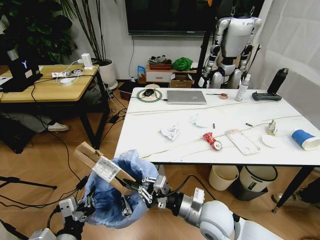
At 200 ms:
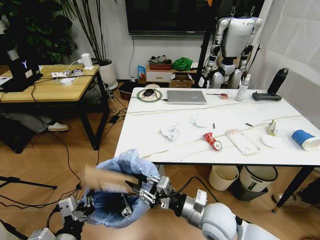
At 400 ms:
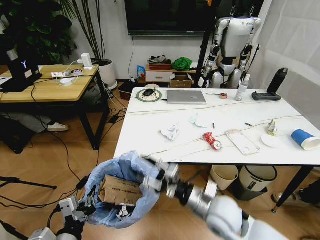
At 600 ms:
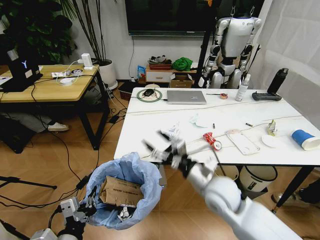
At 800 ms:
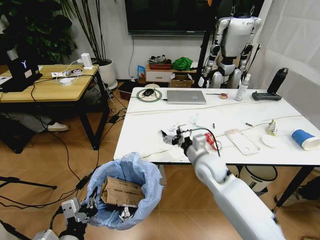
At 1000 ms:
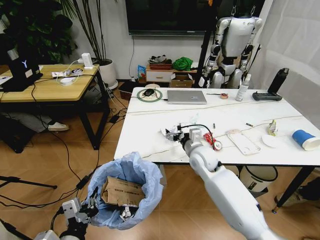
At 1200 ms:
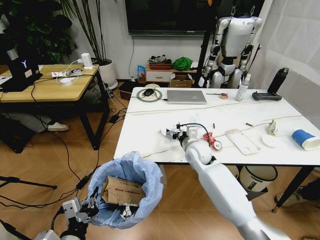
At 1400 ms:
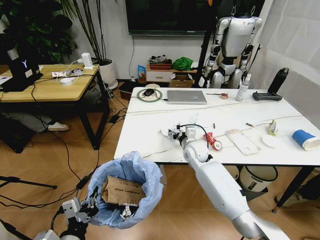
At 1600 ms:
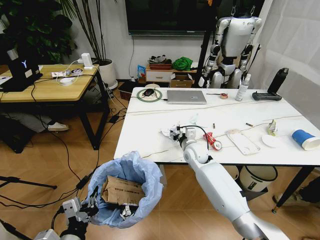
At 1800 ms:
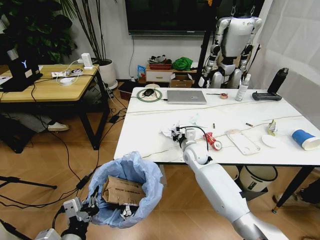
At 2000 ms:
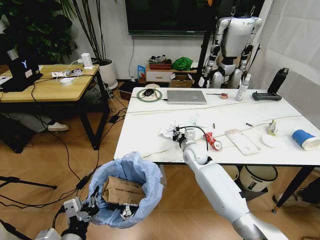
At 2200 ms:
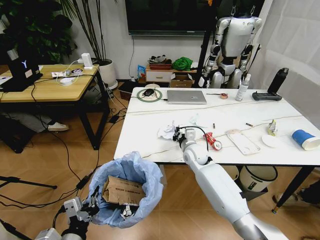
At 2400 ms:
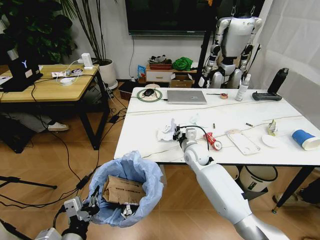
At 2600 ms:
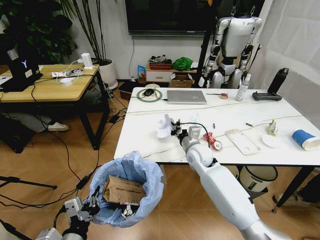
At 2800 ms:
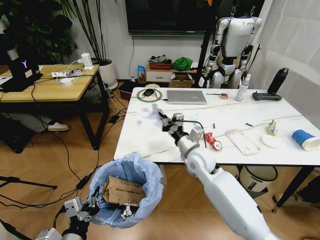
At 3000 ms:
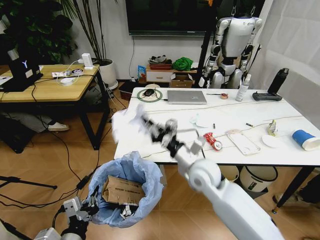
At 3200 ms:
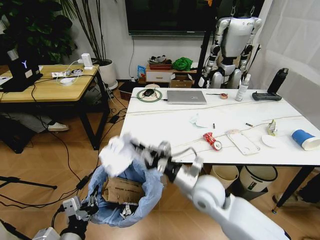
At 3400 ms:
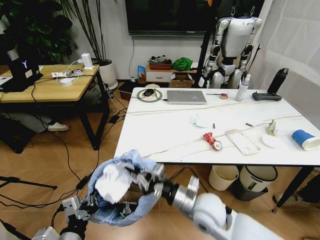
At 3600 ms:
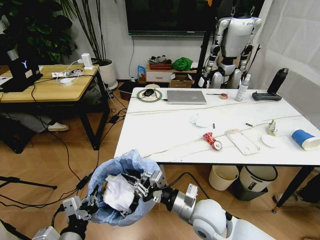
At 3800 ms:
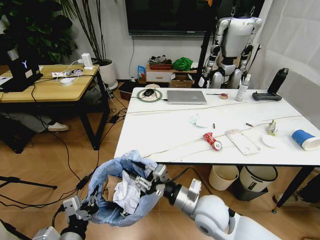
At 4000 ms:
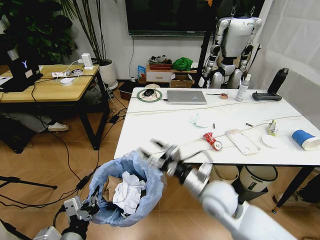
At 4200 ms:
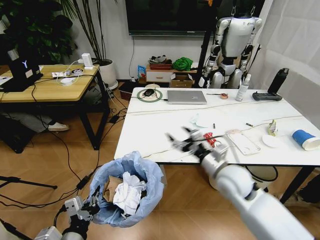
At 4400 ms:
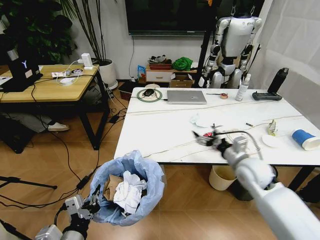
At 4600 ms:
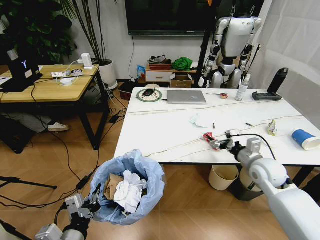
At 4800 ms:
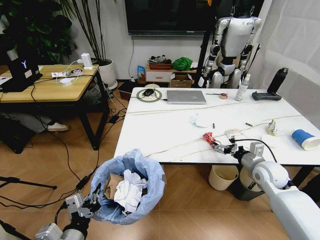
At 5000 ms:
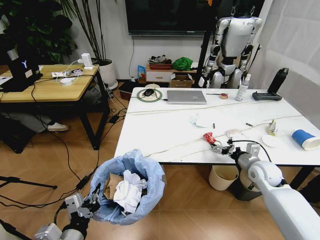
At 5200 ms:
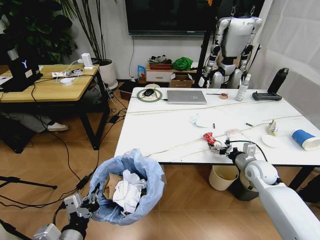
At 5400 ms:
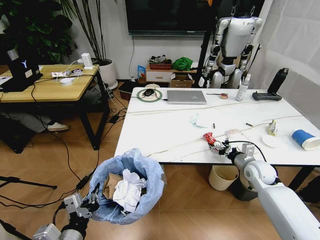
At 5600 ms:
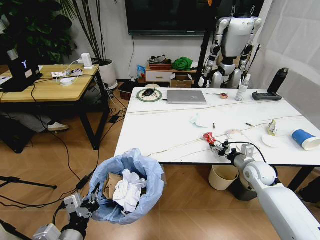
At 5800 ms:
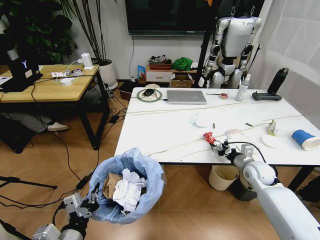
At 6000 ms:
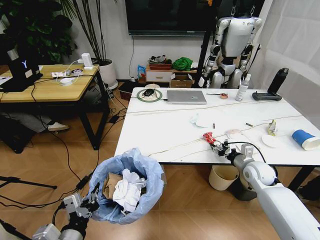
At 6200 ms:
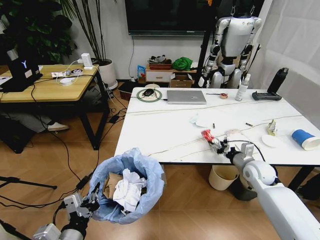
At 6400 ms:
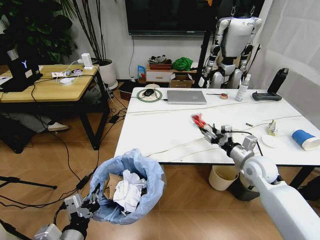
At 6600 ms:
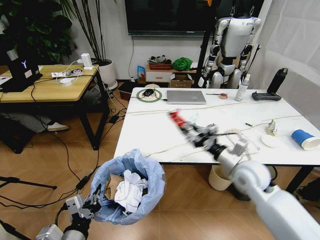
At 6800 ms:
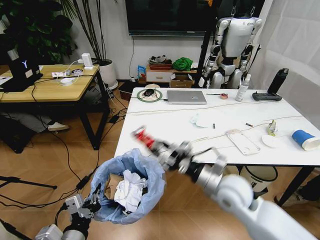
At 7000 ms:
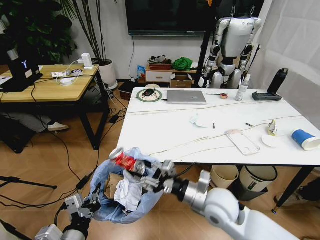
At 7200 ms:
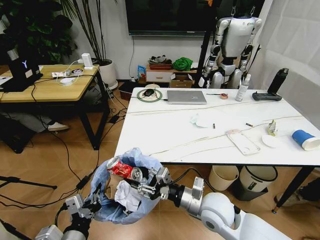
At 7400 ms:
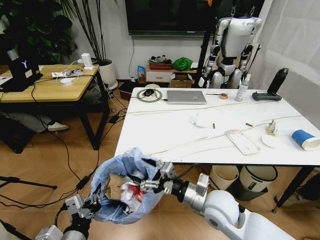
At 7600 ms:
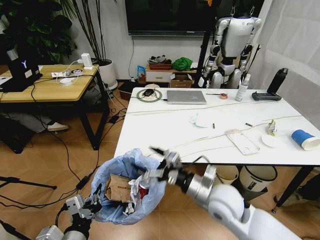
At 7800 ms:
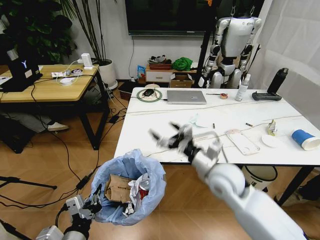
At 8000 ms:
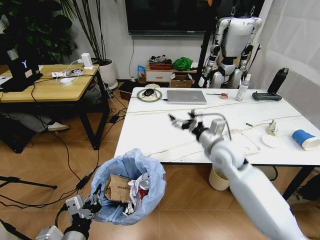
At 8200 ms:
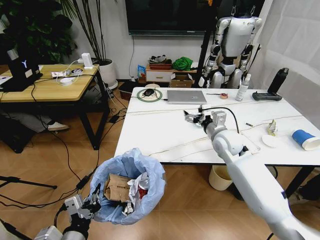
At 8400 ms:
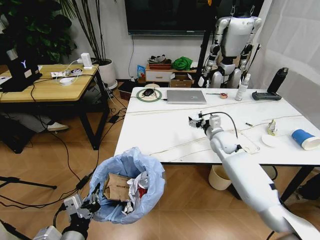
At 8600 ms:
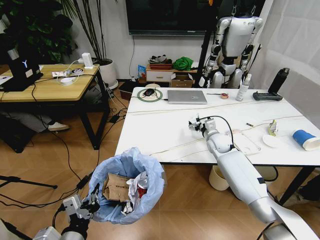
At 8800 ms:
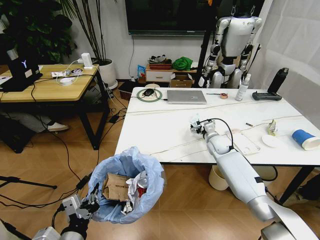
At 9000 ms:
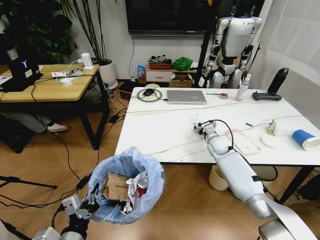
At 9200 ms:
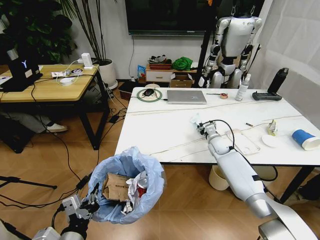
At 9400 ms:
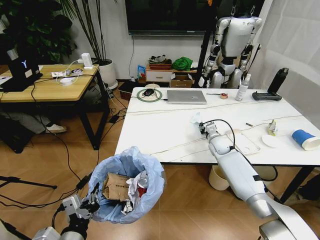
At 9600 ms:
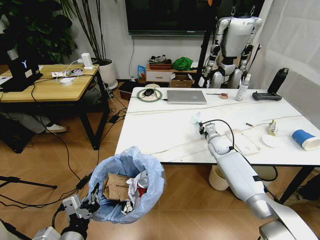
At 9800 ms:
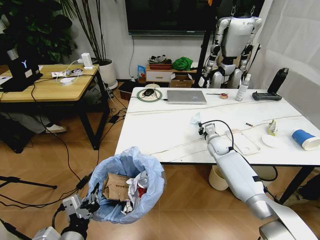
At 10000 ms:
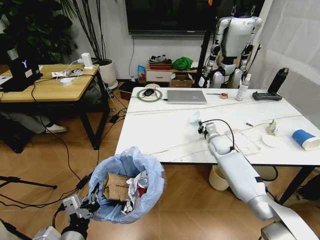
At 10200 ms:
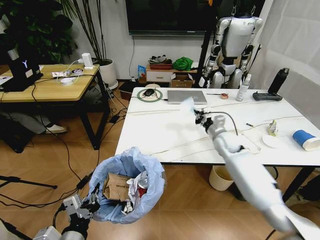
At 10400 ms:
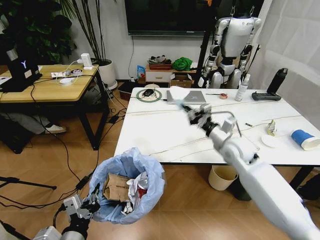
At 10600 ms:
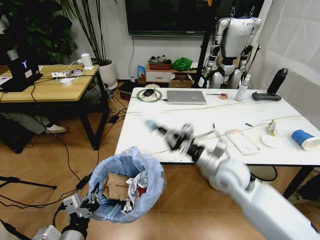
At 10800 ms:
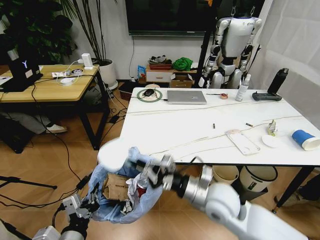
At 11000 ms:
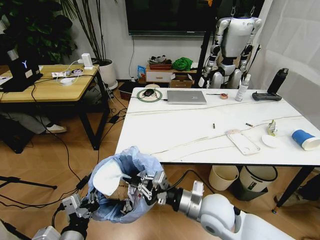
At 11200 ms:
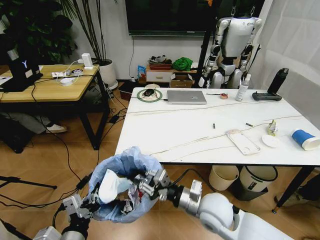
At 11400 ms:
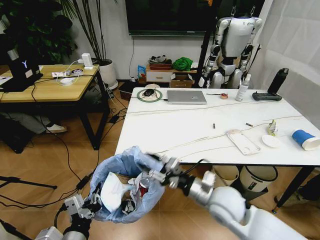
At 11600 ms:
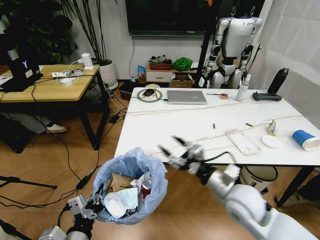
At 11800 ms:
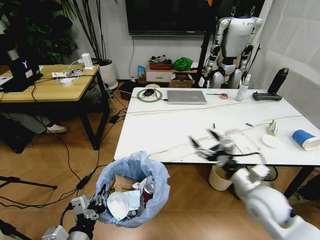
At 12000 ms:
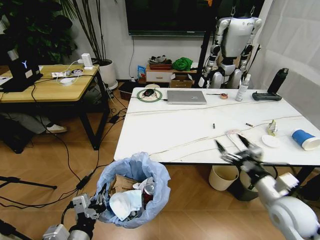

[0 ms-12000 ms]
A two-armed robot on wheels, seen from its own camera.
Task of the whole recording: Pick up the trash bin and place the trash from the table into it.
0 ms to 1600 ms: The right gripper is displaced forward by about 25 cm, and opens.
1600 ms to 3000 ms: The right gripper goes approximately 15 cm backward and upward, and closes up.
3000 ms to 4400 ms: The right gripper heads to the right, covering roughly 15 cm, and opens its fingers.
4400 ms to 6000 ms: The right gripper heads downward and to the right, covering approximately 10 cm, and closes up.
6000 ms to 7600 ms: The right gripper moves to the left, backward and upward, some 25 cm, and opens.
7600 ms to 9000 ms: The right gripper heads forward and downward, covering about 30 cm.
9000 ms to 10400 ms: The right gripper goes some 20 cm backward and upward, and closes up.
10400 ms to 12000 ms: The right gripper heads backward and to the right, covering some 20 cm, and opens up.

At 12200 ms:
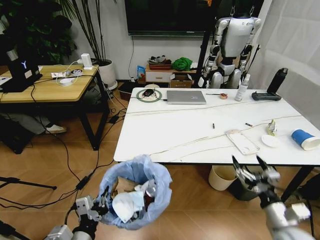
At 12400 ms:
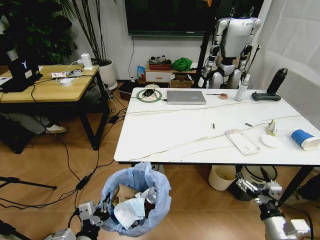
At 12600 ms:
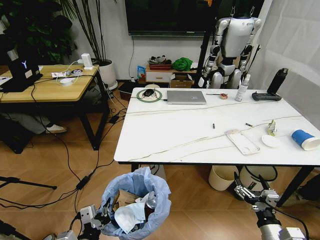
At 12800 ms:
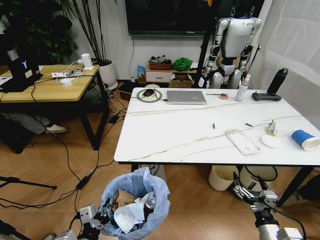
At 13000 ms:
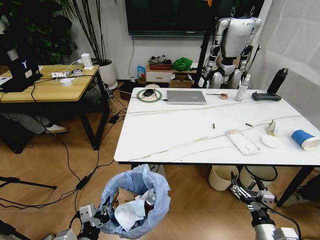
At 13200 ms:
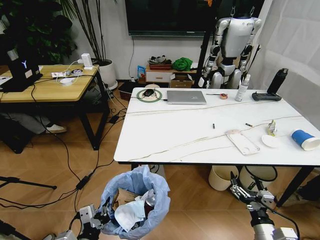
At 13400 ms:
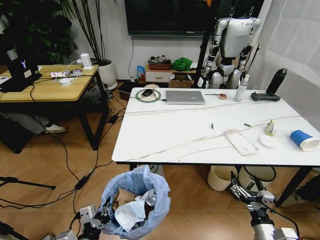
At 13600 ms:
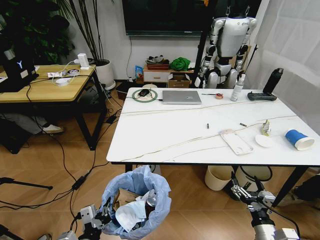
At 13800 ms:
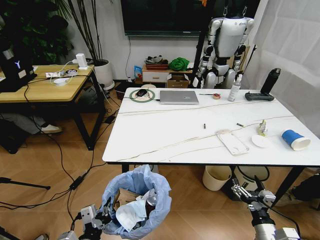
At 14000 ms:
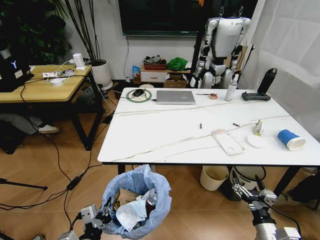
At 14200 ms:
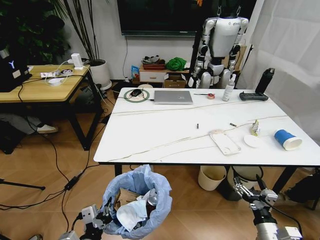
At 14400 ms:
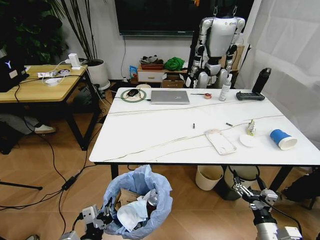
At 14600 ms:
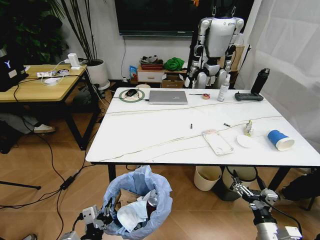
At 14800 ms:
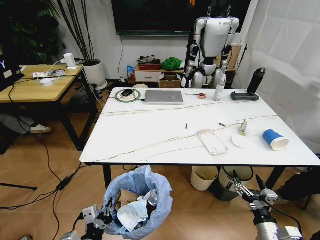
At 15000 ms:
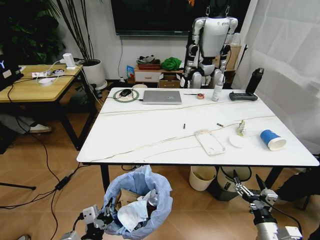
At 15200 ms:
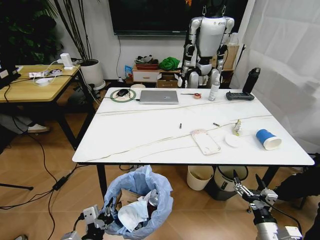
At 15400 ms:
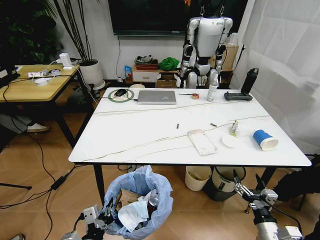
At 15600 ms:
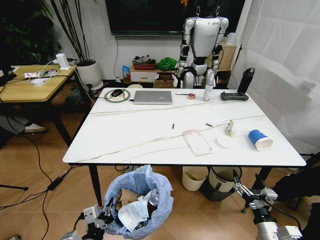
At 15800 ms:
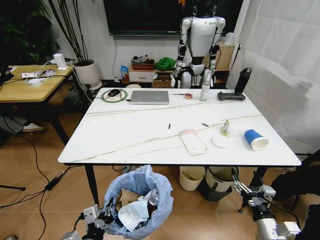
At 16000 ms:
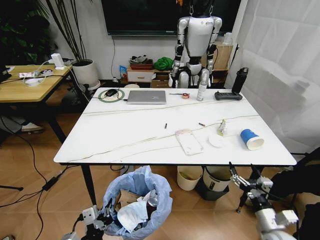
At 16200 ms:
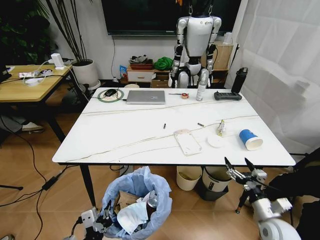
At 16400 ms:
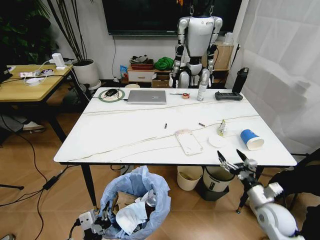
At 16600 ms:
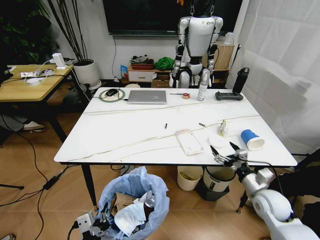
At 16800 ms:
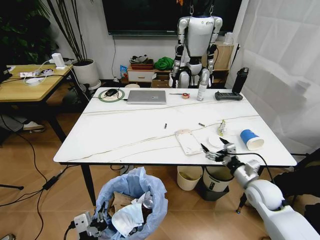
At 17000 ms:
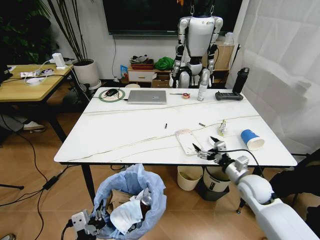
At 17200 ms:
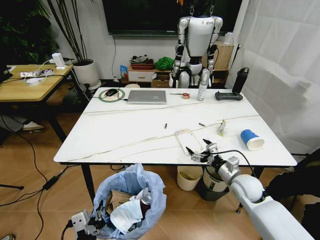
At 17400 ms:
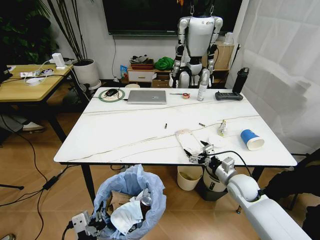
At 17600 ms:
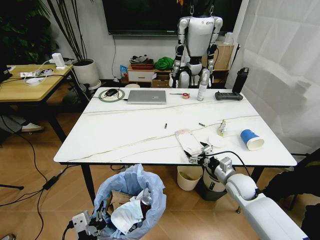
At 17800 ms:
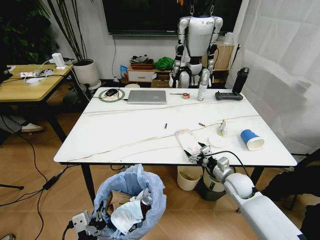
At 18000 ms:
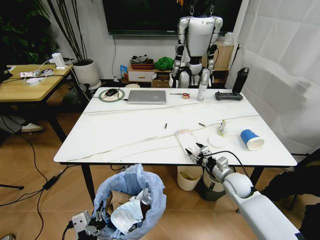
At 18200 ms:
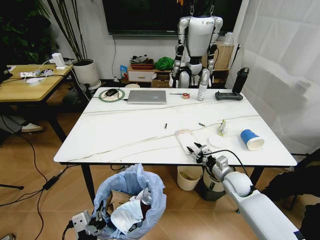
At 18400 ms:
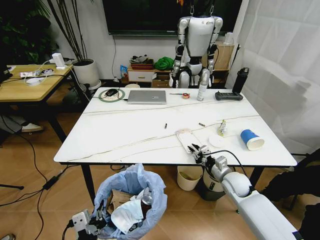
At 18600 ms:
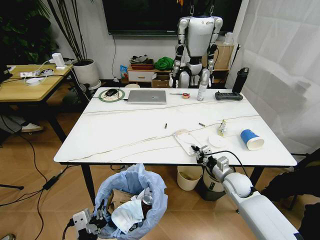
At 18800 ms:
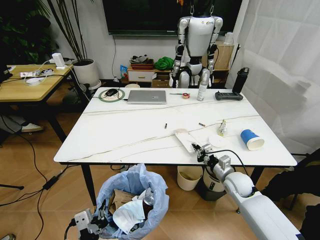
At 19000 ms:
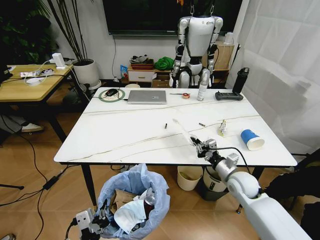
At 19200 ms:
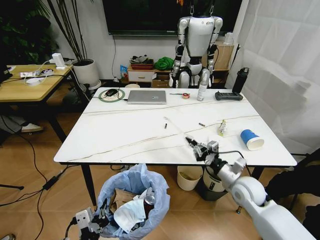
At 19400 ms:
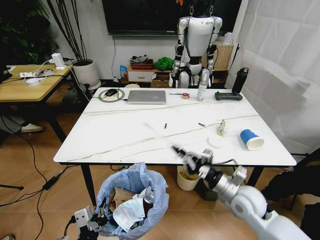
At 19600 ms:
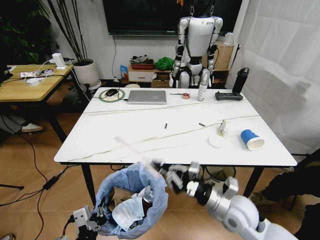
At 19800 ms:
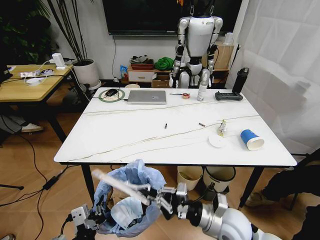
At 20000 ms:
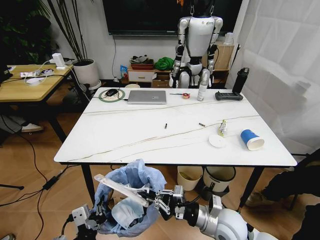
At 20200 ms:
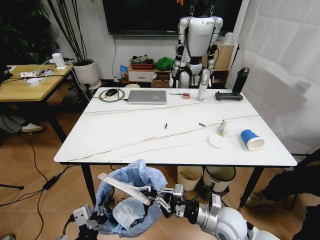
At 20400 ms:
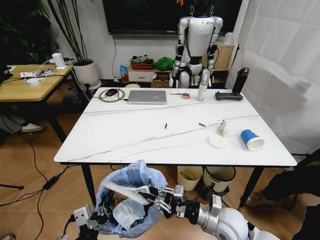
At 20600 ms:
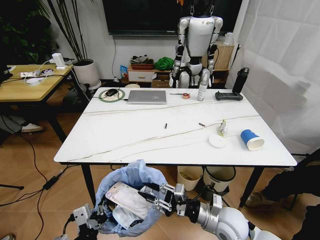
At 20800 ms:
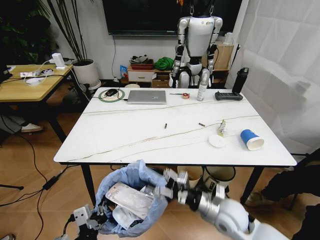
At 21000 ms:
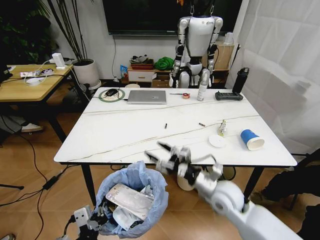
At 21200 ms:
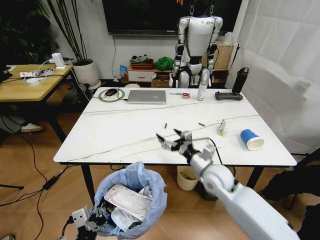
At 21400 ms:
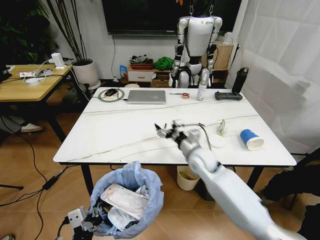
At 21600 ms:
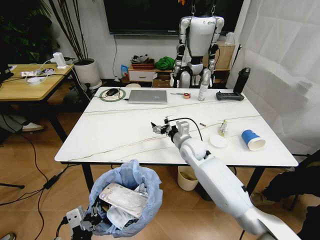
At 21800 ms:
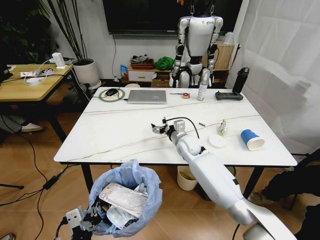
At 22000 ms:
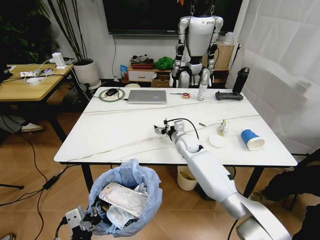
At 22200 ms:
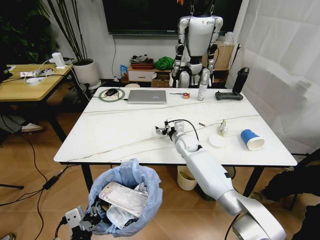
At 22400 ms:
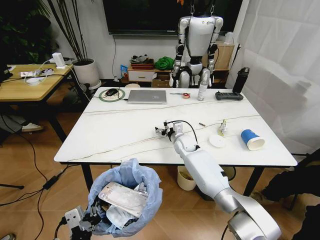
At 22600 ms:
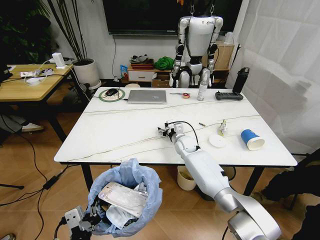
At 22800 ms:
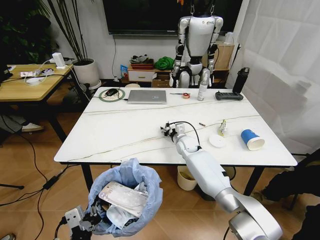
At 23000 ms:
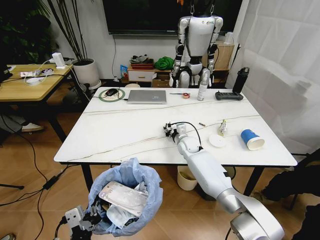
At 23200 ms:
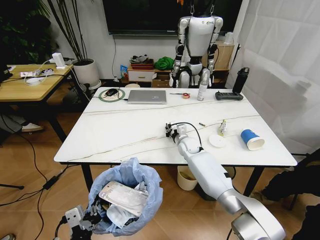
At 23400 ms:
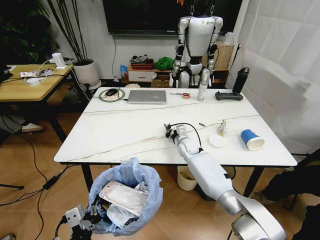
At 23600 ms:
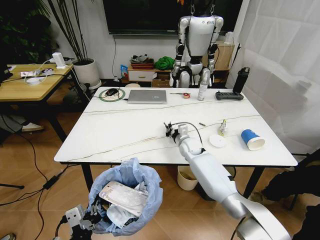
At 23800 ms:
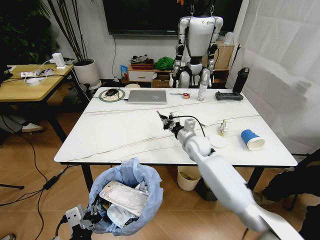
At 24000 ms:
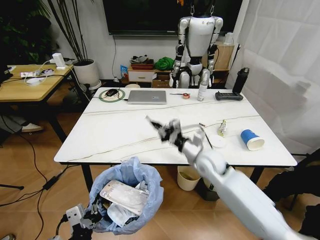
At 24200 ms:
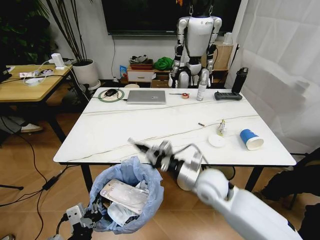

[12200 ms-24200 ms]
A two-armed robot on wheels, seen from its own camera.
Task of the whole recording: Pick up the trash bin and place the trash from the table into it.
12200 ms to 13800 ms: The right gripper is displaced downward by approximately 5 cm.
15200 ms to 16600 ms: The right gripper shifts about 15 cm forward.
16600 ms to 18200 ms: The right gripper travels forward and to the left by some 10 cm, and closes up.
18200 ms to 19800 ms: The right gripper moves backward, to the left and upward, about 20 cm, and closes its fingers.
19800 ms to 21200 ms: The right gripper moves forward, roughly 10 cm, and opens.
21200 ms to 22600 ms: The right gripper heads forward, covering roughly 20 cm.
22600 ms to 24200 ms: The right gripper shifts about 25 cm backward, and closes its fingers.
